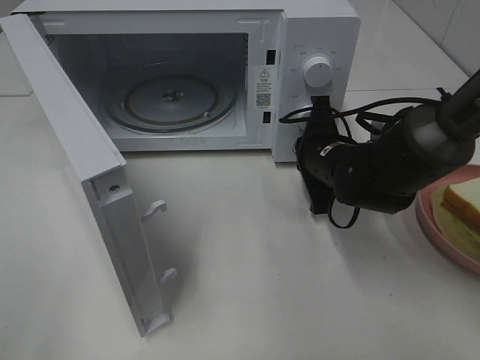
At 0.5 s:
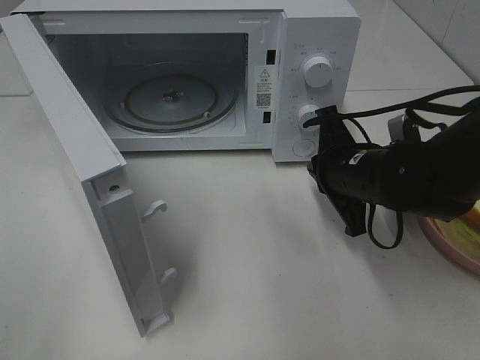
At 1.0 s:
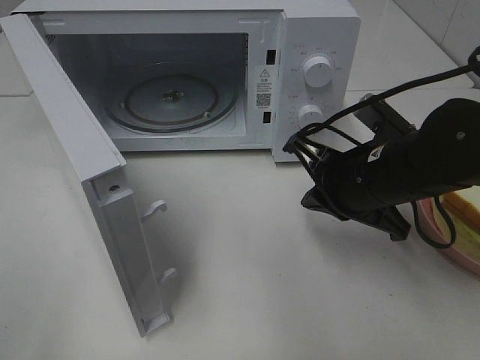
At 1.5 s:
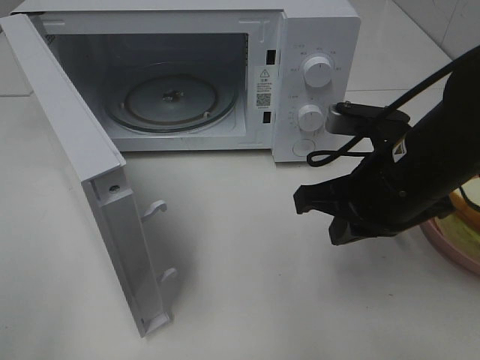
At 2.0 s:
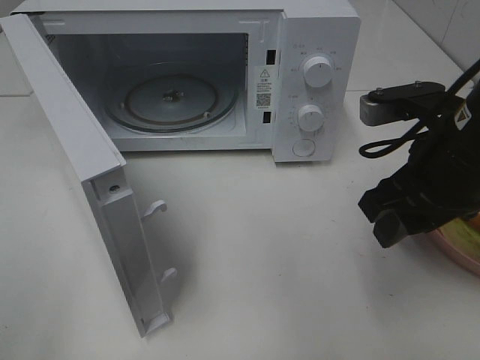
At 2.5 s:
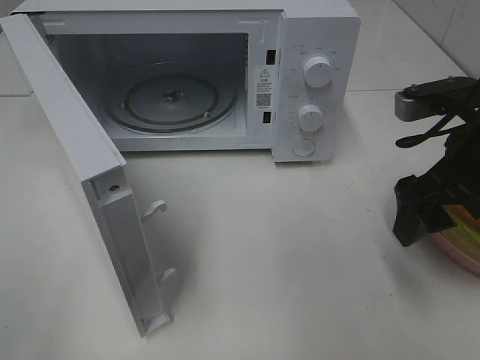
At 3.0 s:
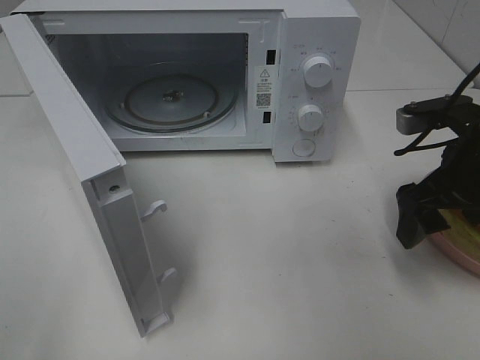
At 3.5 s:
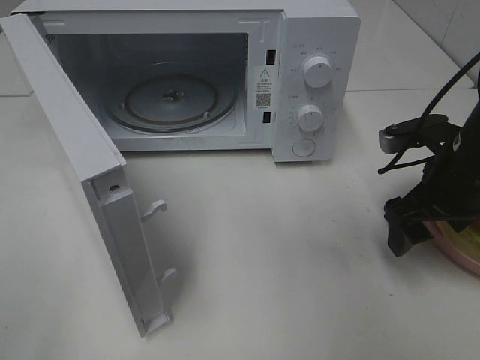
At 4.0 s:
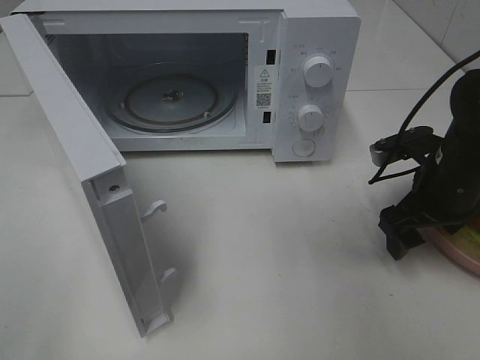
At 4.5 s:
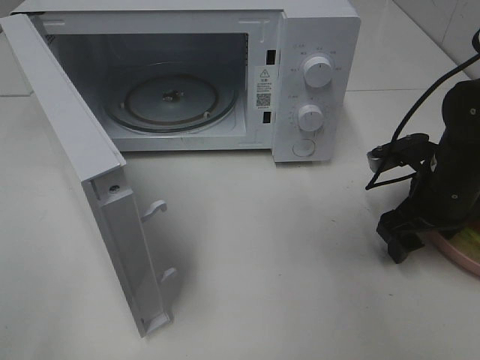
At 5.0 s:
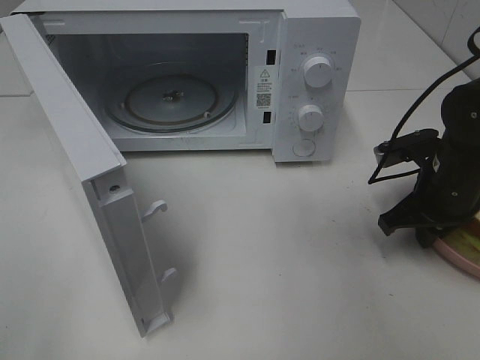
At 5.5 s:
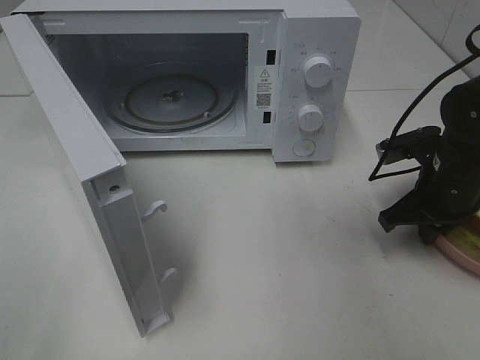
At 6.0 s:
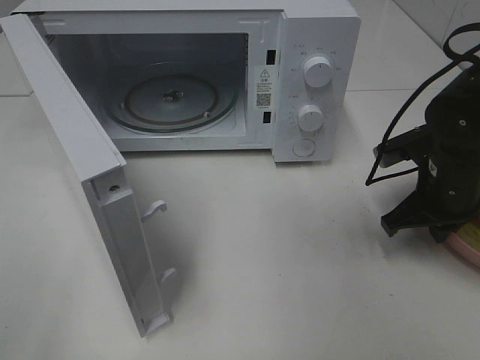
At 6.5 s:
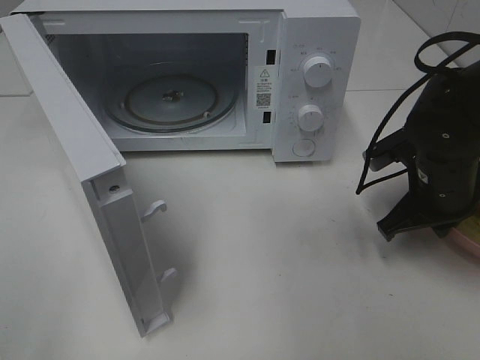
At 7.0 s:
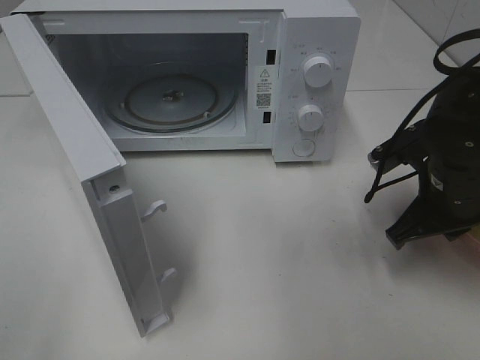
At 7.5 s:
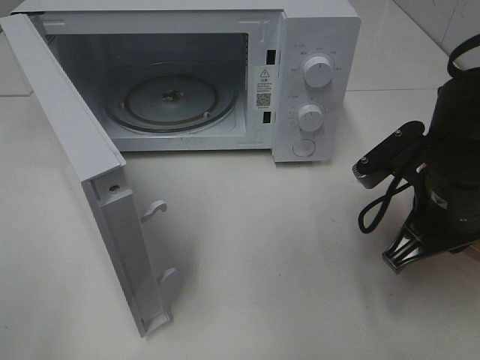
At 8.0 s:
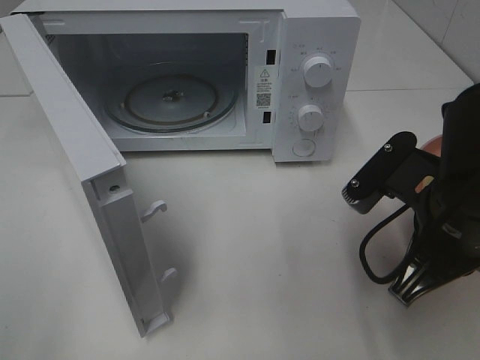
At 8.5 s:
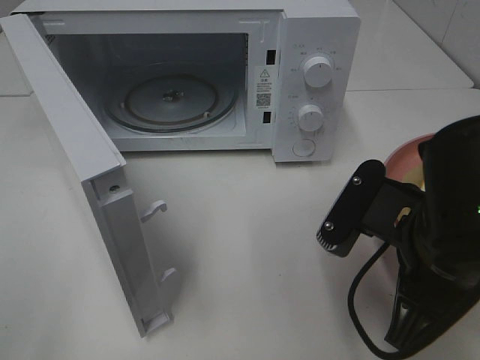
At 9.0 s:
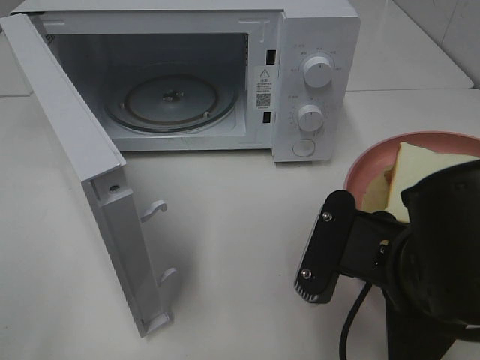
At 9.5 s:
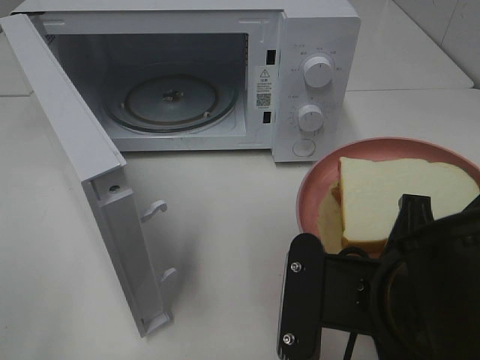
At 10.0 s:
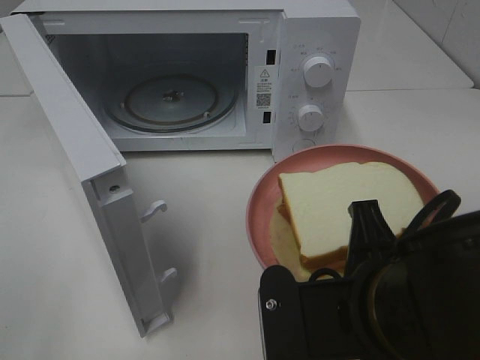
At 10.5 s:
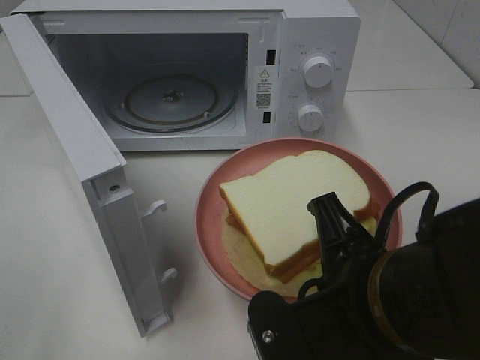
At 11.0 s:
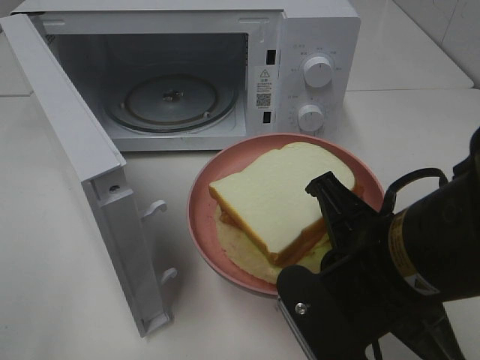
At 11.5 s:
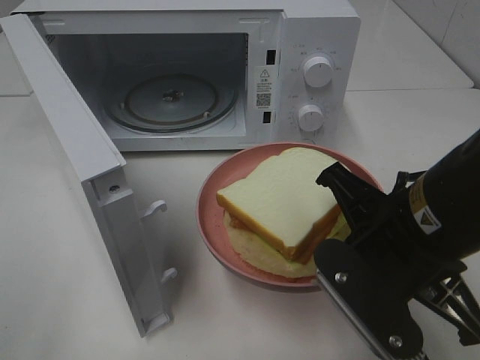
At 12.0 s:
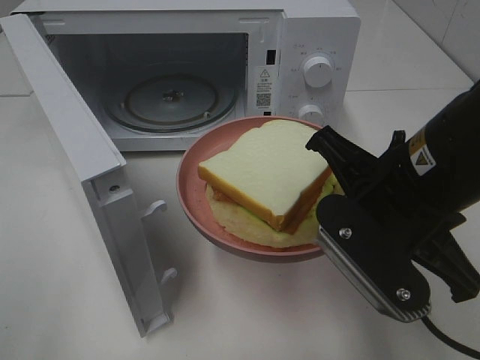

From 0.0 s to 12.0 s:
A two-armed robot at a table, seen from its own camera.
Task of the whole recording: Heat Sandwich.
Step, from 1.5 s to 5.5 s: Right hand: grab the plate with the sandwich.
From 0.0 s to 2.0 s: The right gripper travels upward and backward by about 15 cm, and opens its fingers.
From 2.0 s to 4.0 s: The right gripper shifts about 15 cm downward, forward and to the right, and opens up.
From 4.0 s to 6.0 s: The right gripper closes.
From 6.0 s to 8.0 s: The right gripper goes some 15 cm backward, to the left and upward.
From 8.0 s to 10.0 s: The right gripper shifts some 10 cm backward and to the left.
From 10.0 s to 12.0 s: The right gripper is displaced forward by approximately 10 cm.

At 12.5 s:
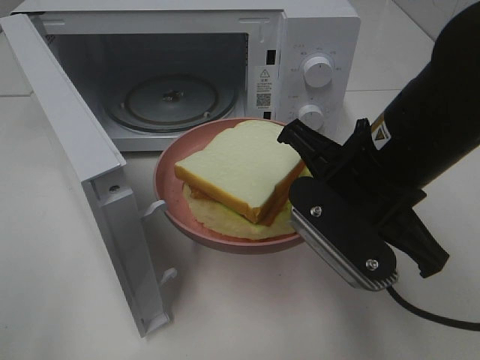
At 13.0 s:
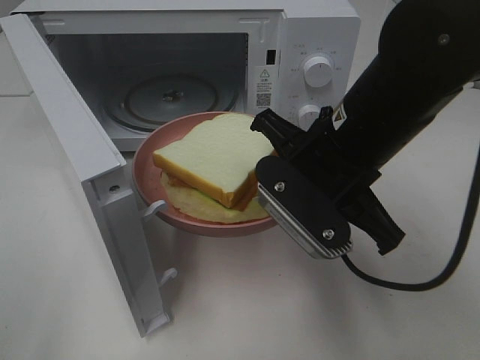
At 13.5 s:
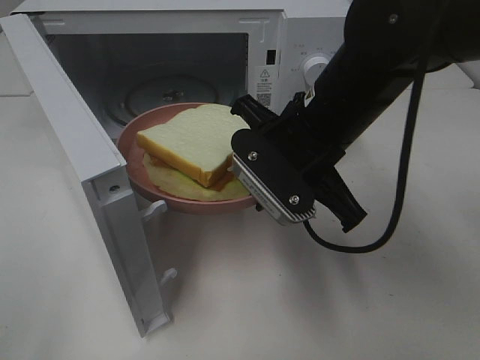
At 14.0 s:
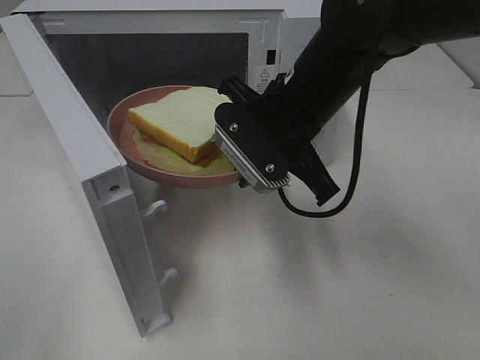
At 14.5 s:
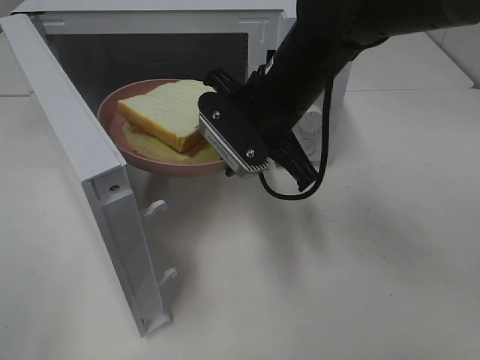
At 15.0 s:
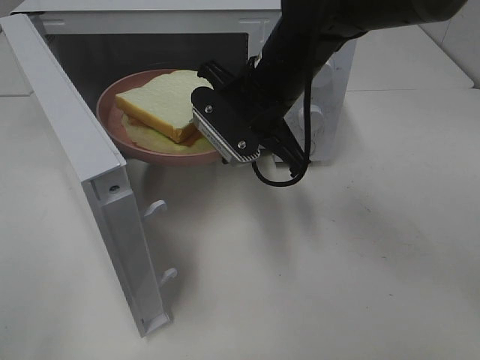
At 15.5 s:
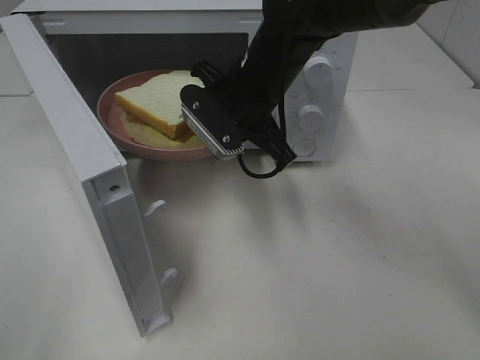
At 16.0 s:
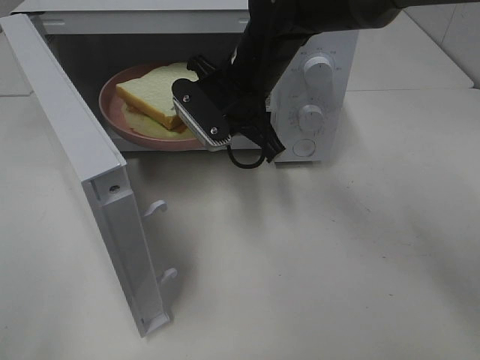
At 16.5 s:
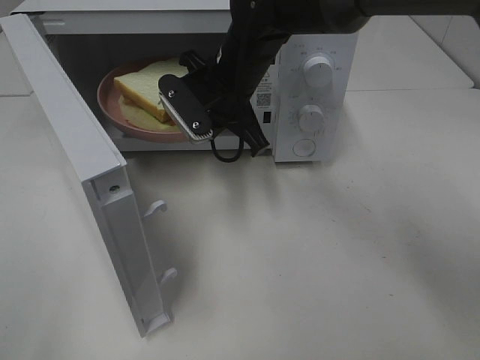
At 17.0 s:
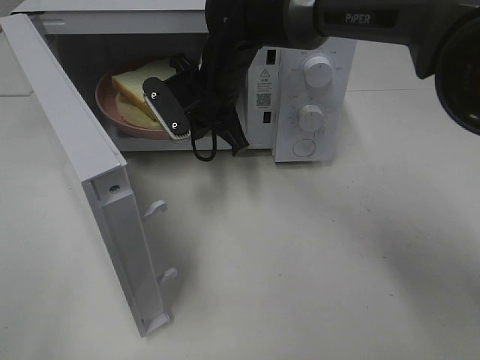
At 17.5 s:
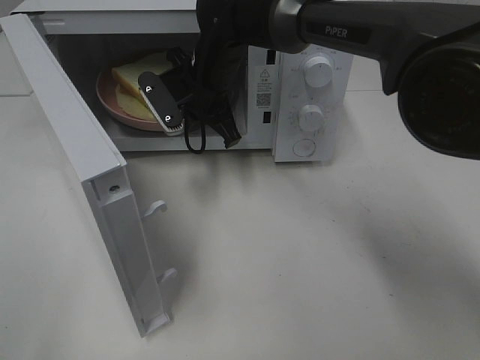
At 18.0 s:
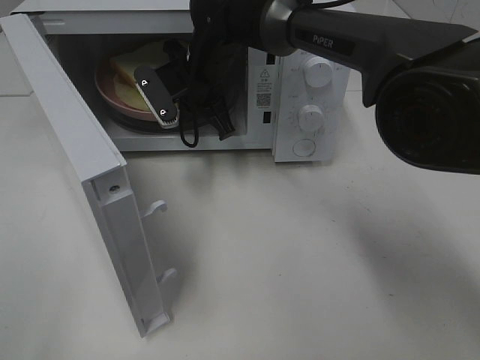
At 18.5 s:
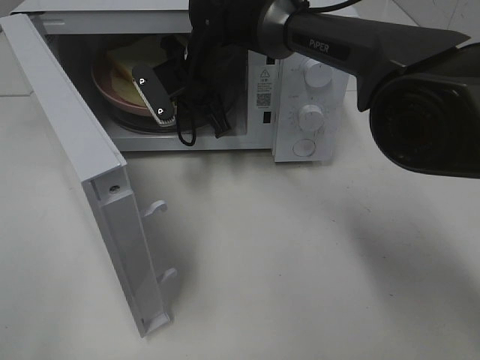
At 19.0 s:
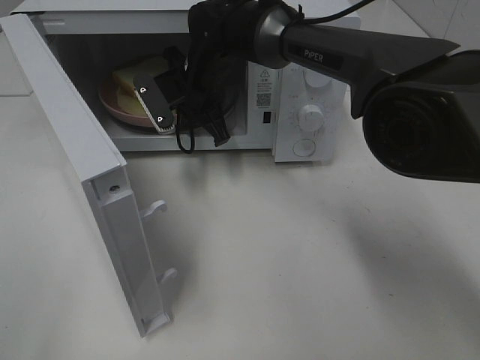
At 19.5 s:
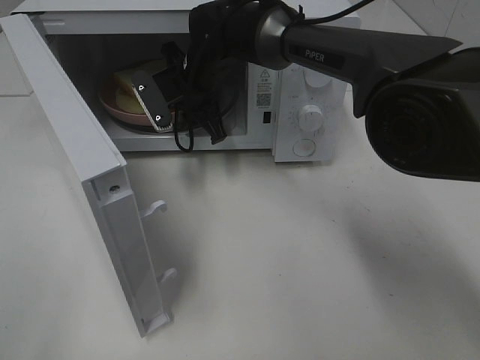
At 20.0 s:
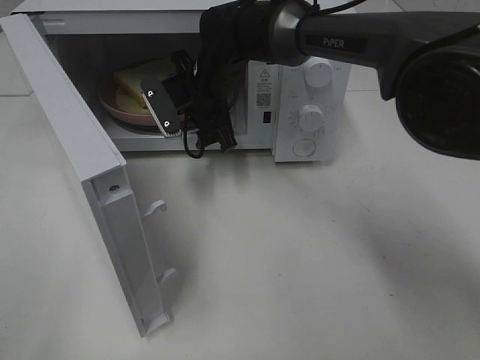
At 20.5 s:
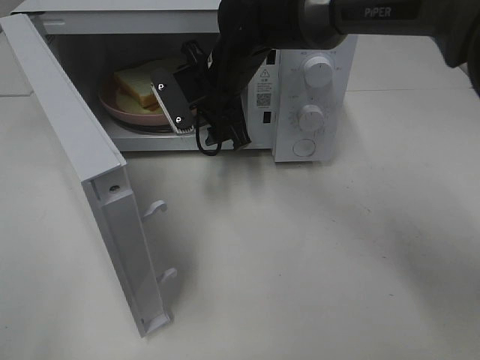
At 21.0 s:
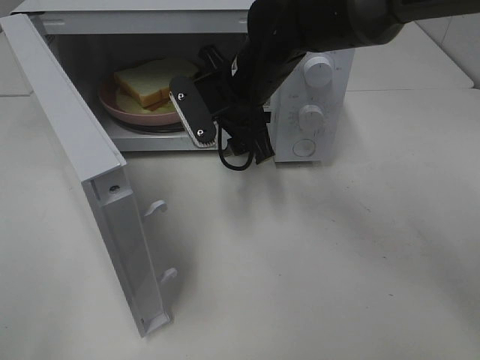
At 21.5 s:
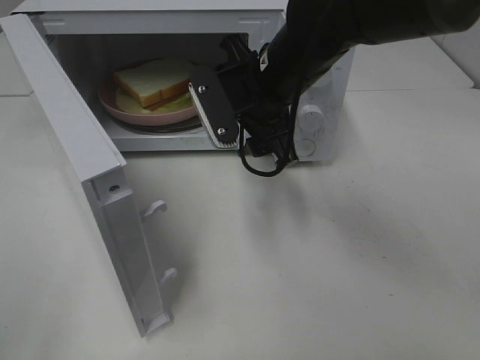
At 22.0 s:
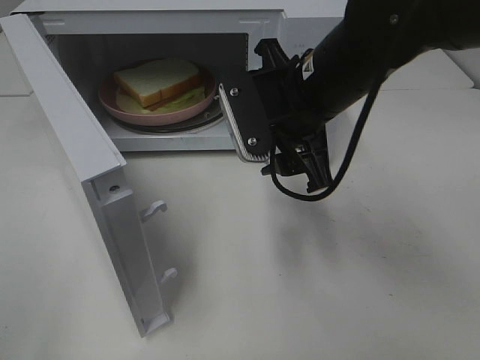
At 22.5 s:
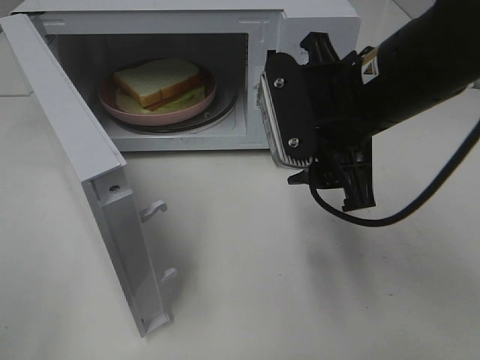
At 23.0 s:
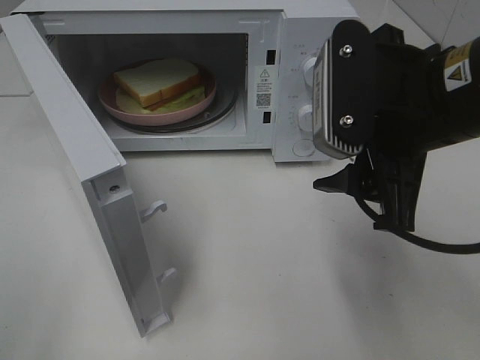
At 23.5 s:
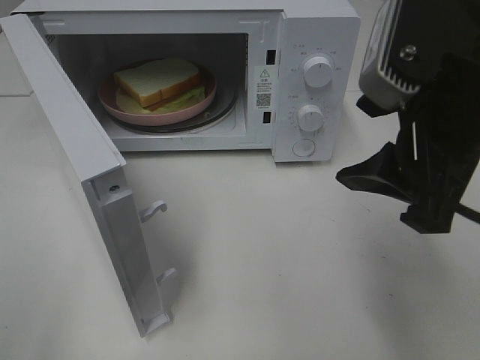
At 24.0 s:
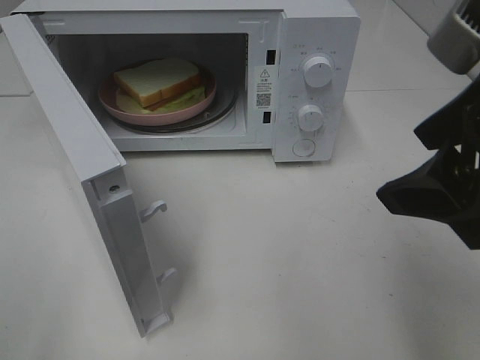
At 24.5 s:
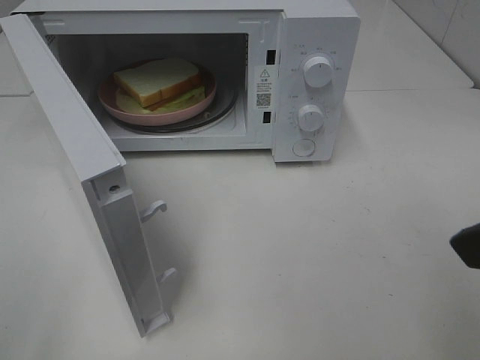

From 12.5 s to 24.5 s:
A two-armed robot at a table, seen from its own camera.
Task of the whole recording: Heat Sandwich.
Step, from 12.5 s to 20.5 s: Right hand: place the plate in the microwave.
From 12.5 s to 14.5 s: The right gripper travels forward and to the left by about 15 cm.
From 14.5 s to 16.5 s: The right gripper heads forward, covering about 5 cm.
From 16.5 s to 18.5 s: The right gripper heads forward, covering approximately 5 cm.
From 18.5 s to 20.5 s: The right gripper opens.
From 20.5 s to 22.5 s: The right gripper heads backward, to the right and upward, covering about 20 cm.
From 22.5 s to 24.5 s: The right gripper shifts some 20 cm backward, to the right and upward.

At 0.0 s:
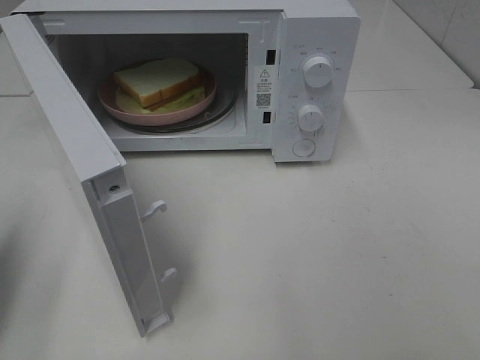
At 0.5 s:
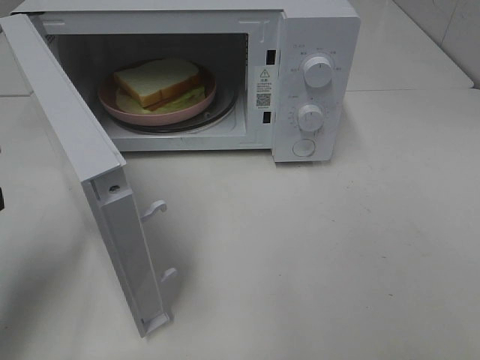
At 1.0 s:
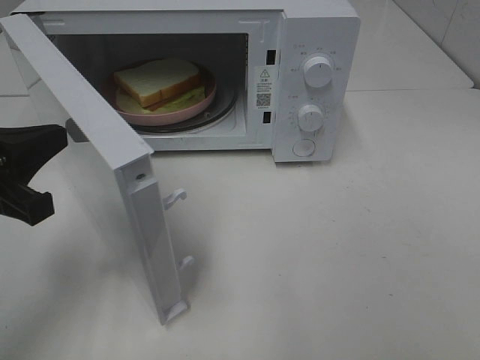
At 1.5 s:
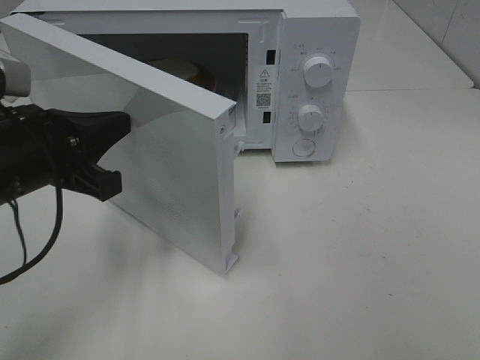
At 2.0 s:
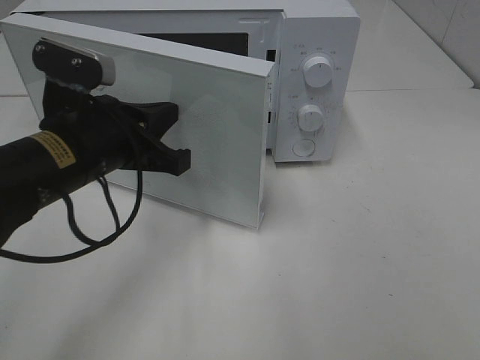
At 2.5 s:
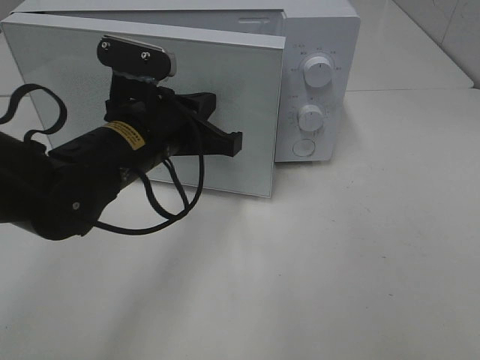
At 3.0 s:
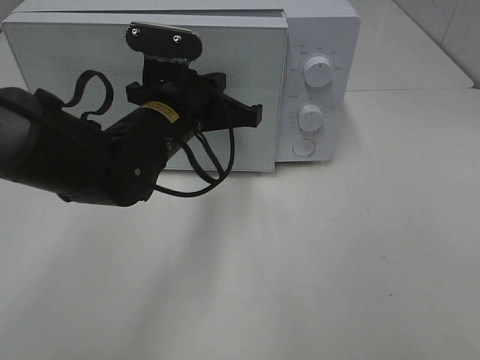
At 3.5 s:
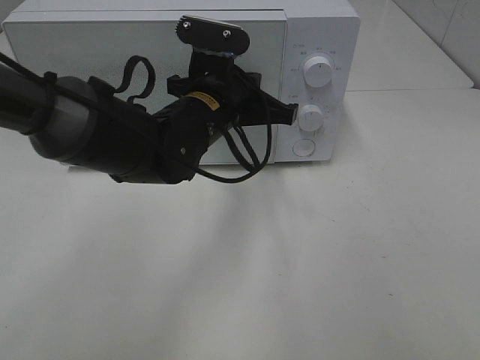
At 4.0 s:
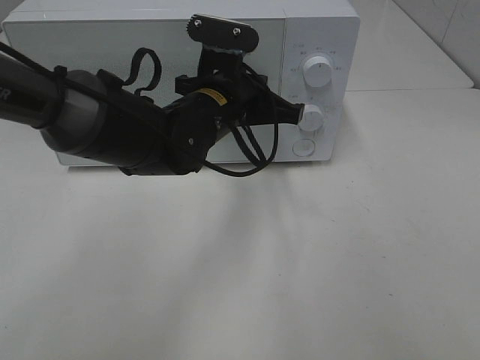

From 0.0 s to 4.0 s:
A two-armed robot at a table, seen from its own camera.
Task of the whole recording: Heat Sandwich.
From 0.0 s to 2.0 s: The left gripper moves to the right and forward, some 20 cm.
From 2.0 s to 4.0 s: The left gripper travels to the right and forward by some 15 cm.
